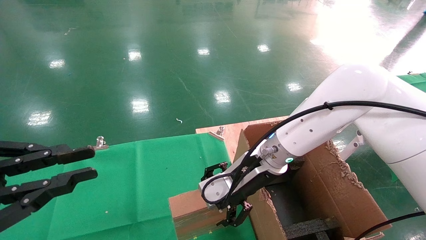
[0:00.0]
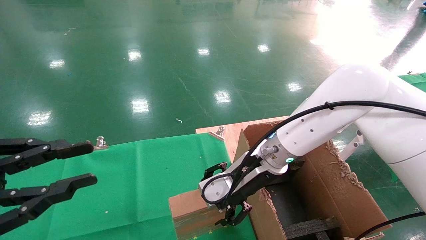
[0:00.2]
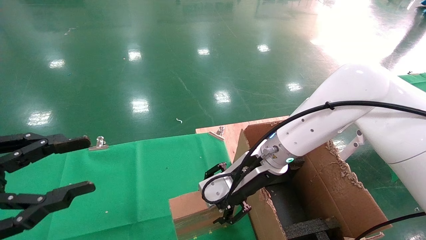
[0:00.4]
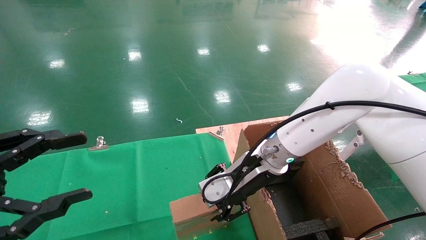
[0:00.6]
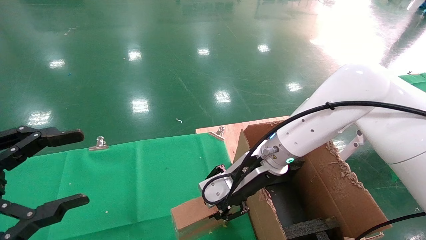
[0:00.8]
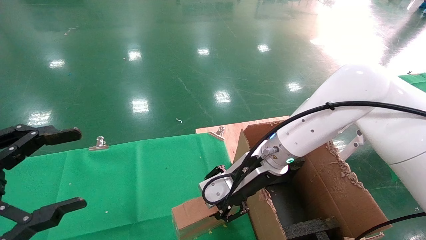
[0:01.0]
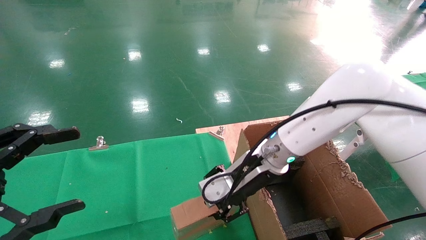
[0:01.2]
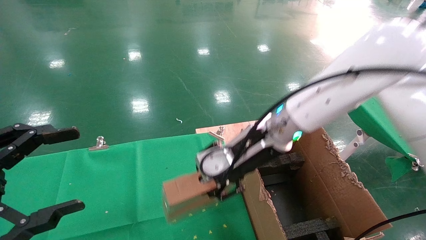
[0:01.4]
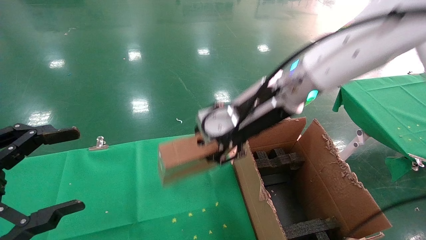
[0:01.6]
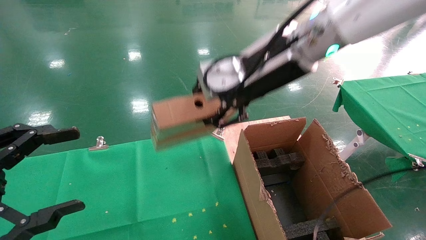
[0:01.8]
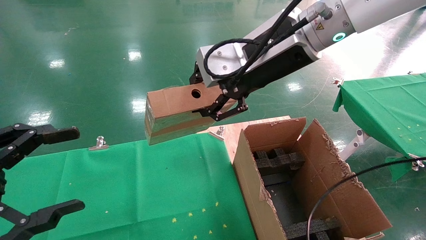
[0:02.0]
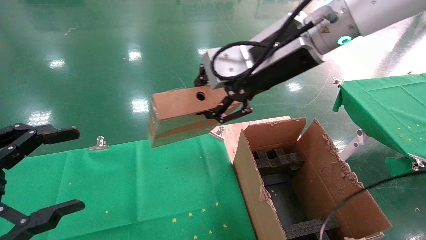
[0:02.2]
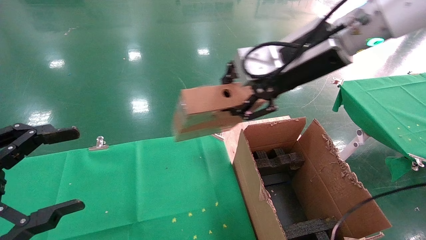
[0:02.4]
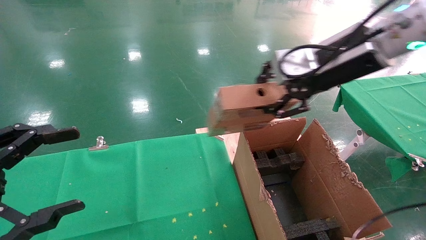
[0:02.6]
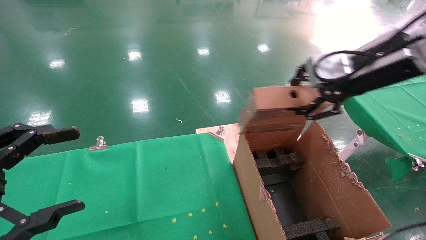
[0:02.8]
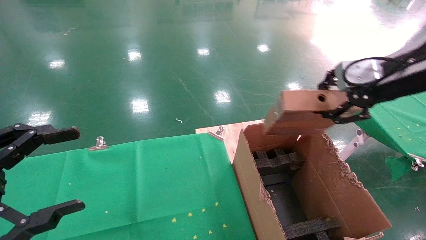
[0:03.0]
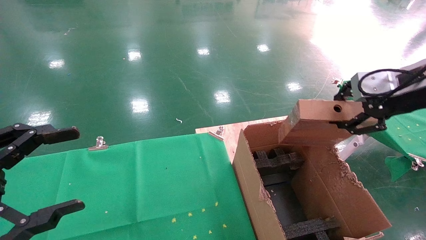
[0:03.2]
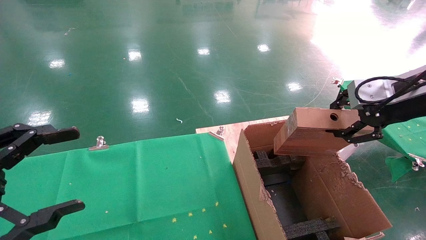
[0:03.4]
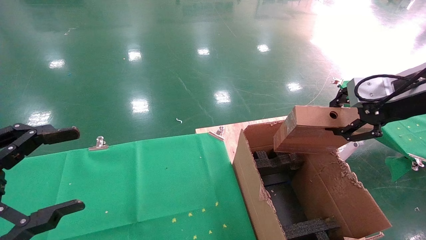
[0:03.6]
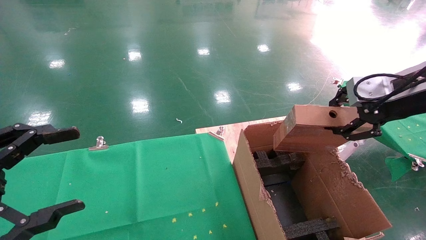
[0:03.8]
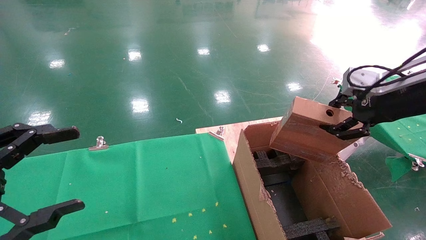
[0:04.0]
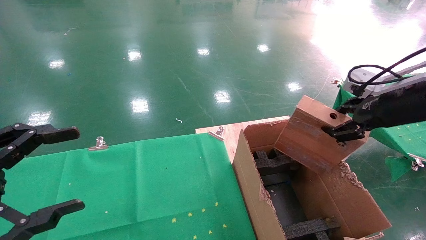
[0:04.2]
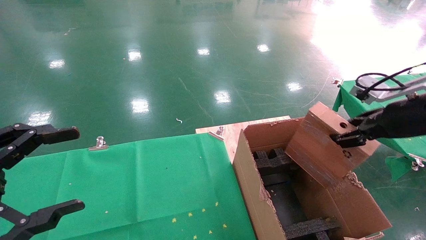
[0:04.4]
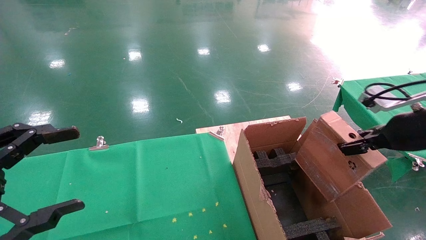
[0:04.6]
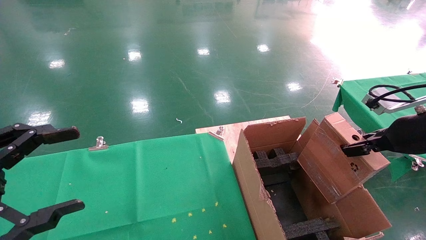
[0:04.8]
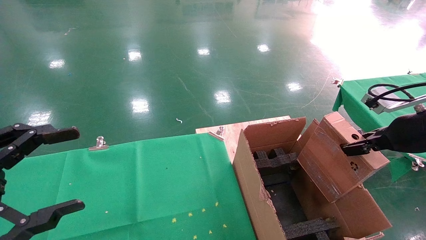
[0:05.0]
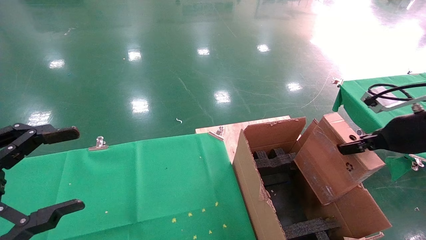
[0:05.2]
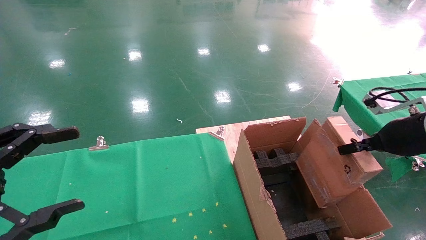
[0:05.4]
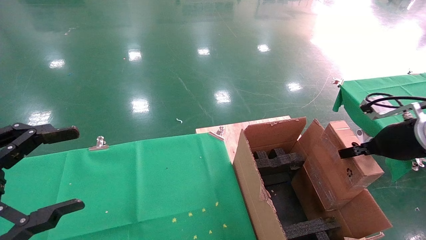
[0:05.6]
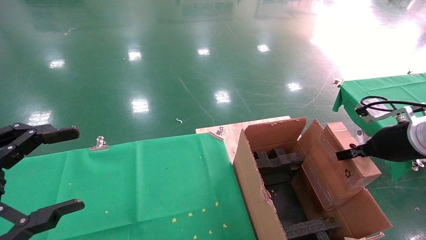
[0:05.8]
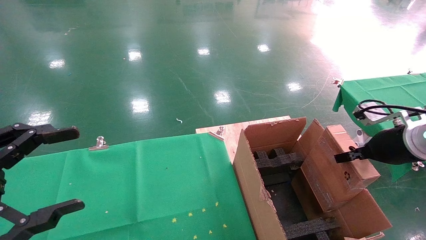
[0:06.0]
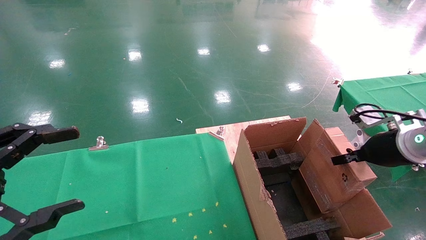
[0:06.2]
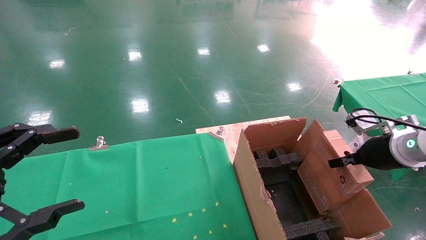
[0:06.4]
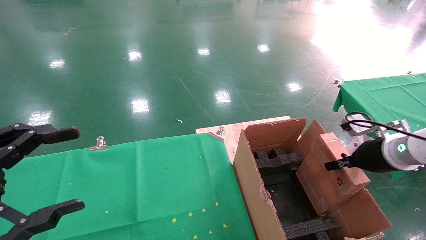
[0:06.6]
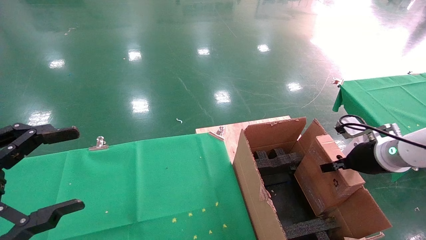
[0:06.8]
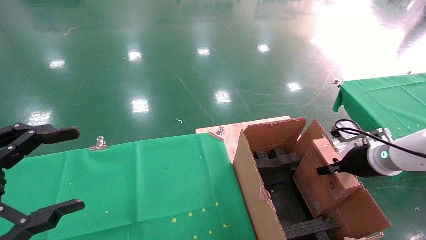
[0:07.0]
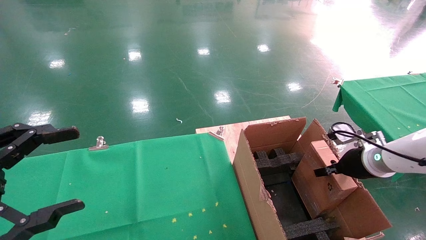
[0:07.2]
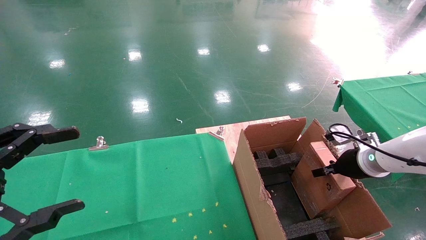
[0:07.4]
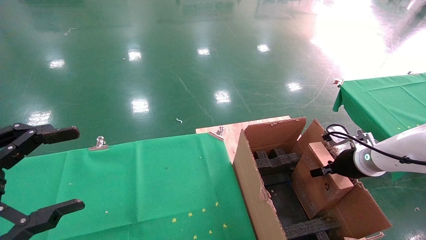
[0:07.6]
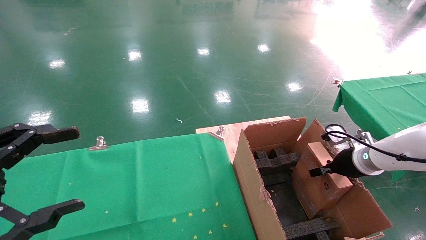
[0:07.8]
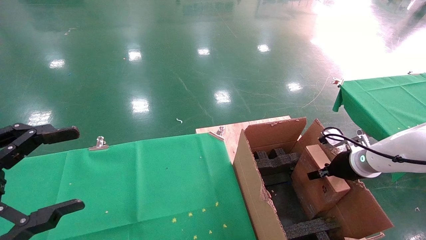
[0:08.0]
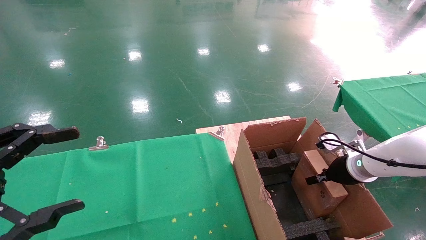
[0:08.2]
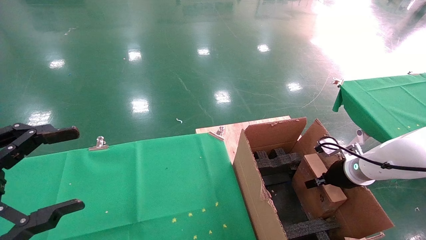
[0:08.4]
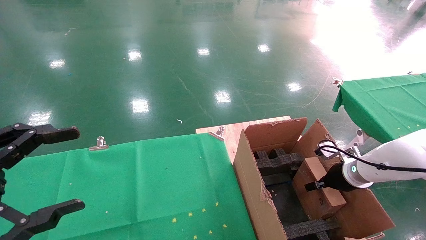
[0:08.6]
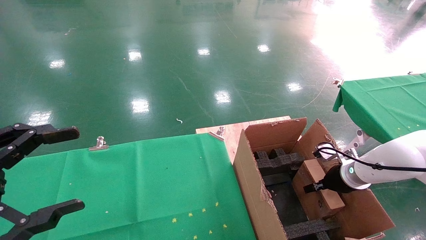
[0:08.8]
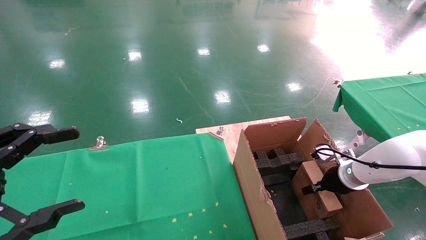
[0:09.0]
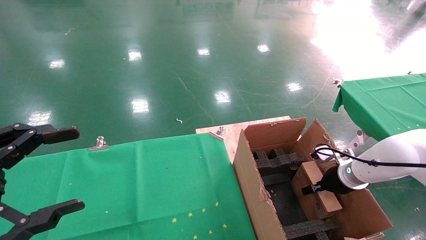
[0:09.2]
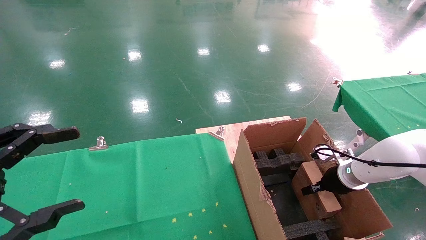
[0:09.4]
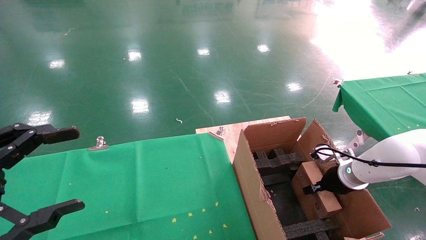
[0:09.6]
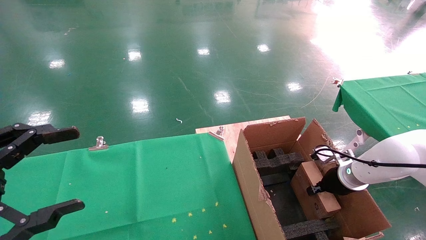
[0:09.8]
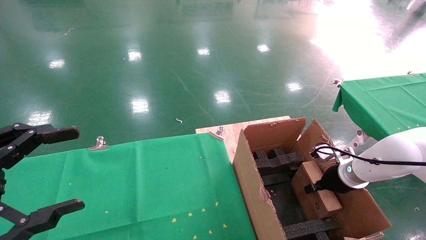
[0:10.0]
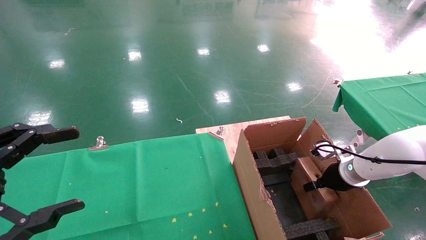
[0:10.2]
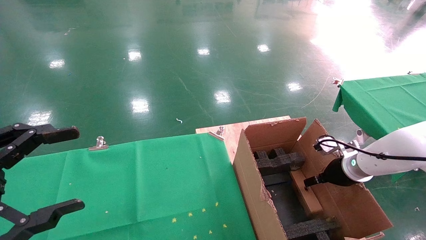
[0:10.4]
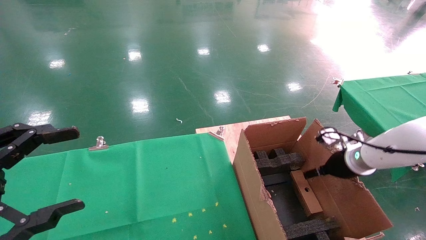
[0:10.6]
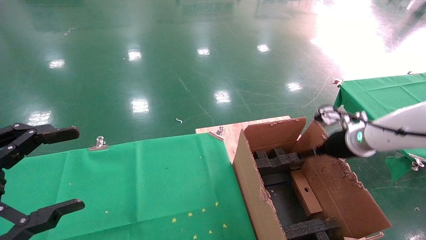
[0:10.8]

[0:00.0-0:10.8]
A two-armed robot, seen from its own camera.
Task of the whole recording: using a robotic arm to pick up a cardboard box and palace it the carton.
Step, 0:00.8 to 0:10.4: Place the mouse and the power cord paper box into the container.
0:00.0 to 0:01.6: The right gripper travels upward by about 15 cm, and closes its fingers, while the left gripper opens its fingers.
0:01.6 to 0:03.0: The right gripper travels to the right by approximately 20 cm.
0:03.0 to 0:04.6: The right gripper travels downward and to the right by roughly 10 cm.
0:04.6 to 0:06.2: The right gripper moves downward, approximately 5 cm.
0:06.2 to 0:07.8: The right gripper shifts about 10 cm downward and forward.
0:07.8 to 0:09.2: The right gripper goes approximately 5 cm downward.
0:09.2 to 0:10.8: The right gripper goes roughly 10 cm upward, and opens up.

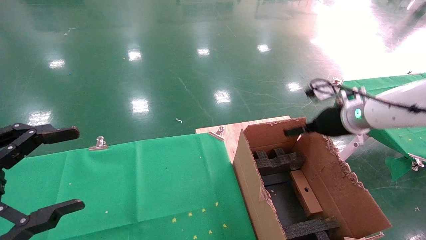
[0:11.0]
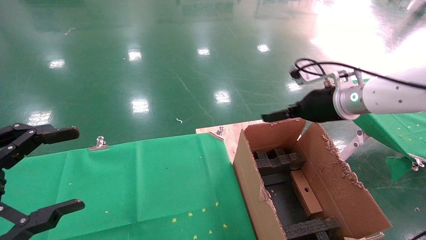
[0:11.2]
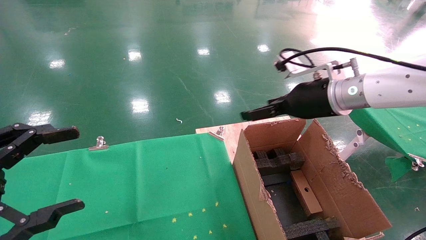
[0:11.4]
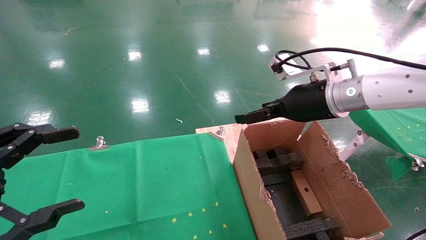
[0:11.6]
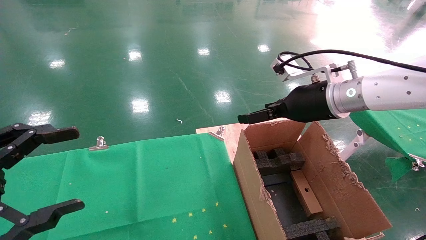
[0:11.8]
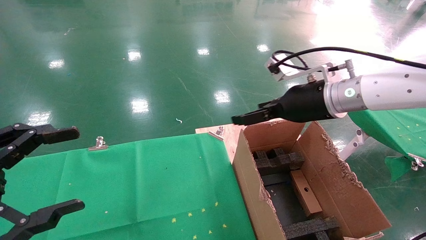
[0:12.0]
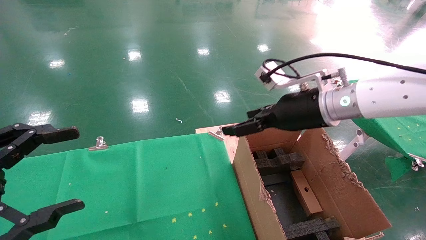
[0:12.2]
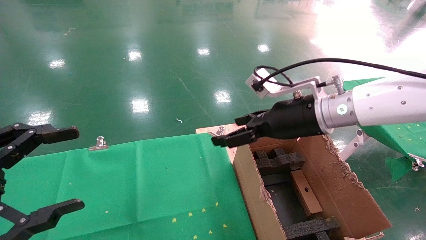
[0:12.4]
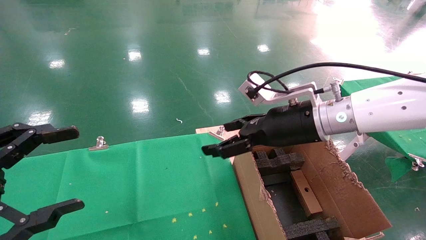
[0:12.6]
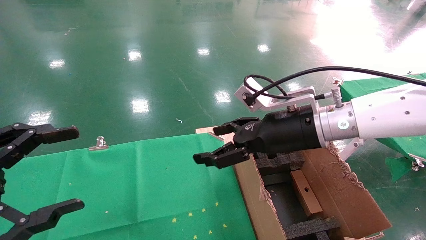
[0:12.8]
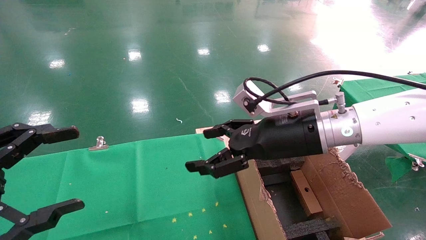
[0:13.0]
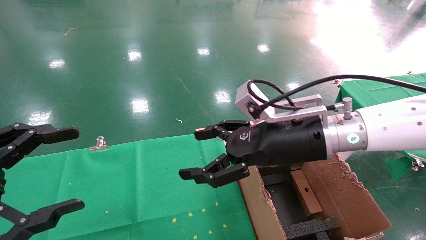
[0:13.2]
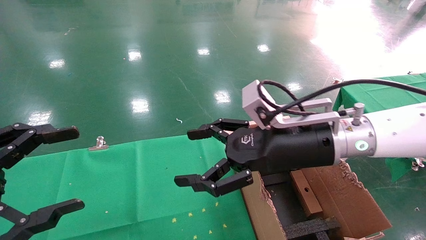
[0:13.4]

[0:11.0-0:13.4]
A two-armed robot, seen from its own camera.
Task of the whole recording: using a robotic arm to pick up a cardboard box and palace it the carton.
0:11.0 to 0:12.2: The right gripper moves to the left, some 10 cm.
0:12.2 to 0:13.4: The right gripper shifts some 5 cm backward.

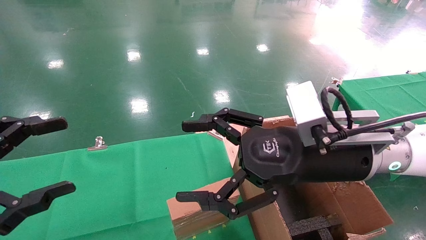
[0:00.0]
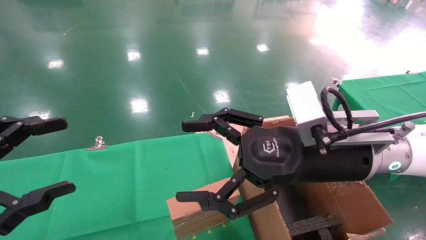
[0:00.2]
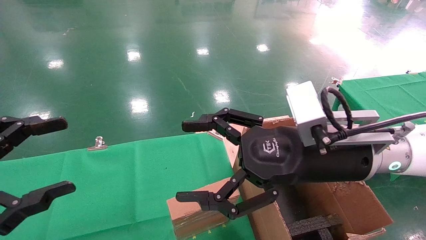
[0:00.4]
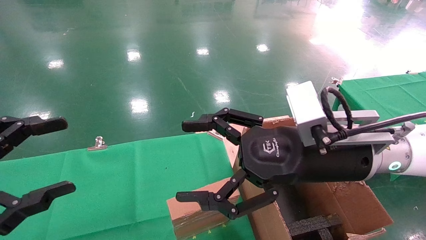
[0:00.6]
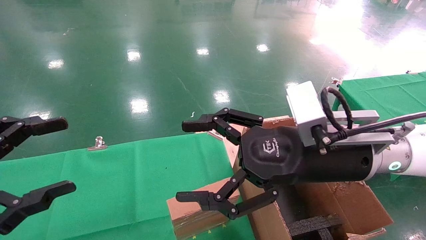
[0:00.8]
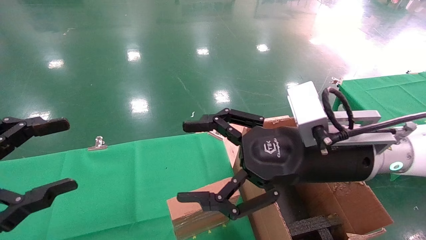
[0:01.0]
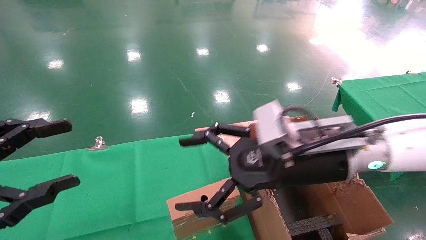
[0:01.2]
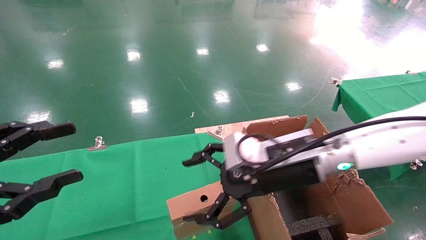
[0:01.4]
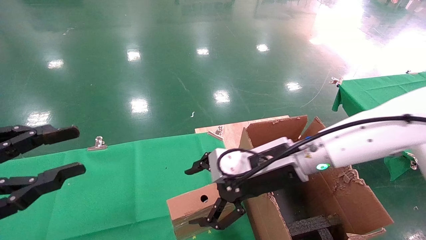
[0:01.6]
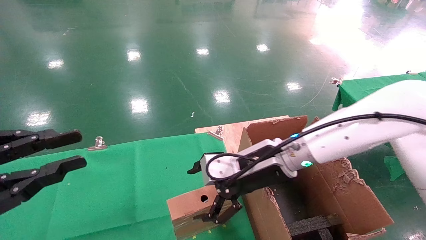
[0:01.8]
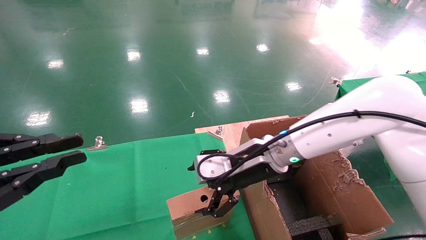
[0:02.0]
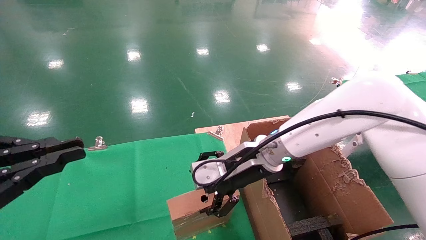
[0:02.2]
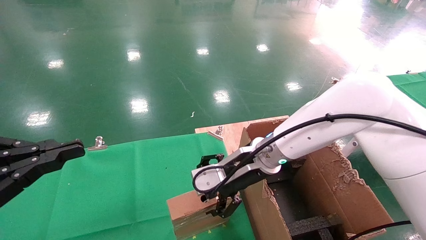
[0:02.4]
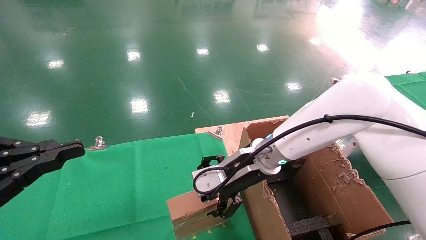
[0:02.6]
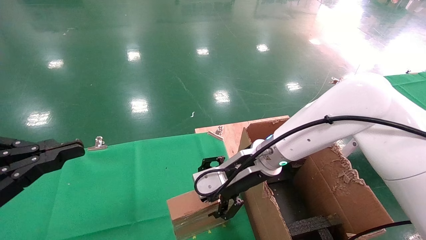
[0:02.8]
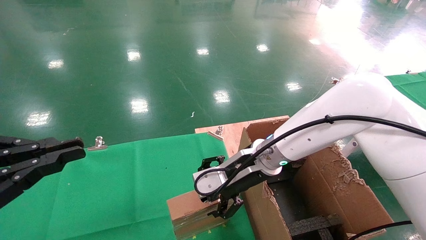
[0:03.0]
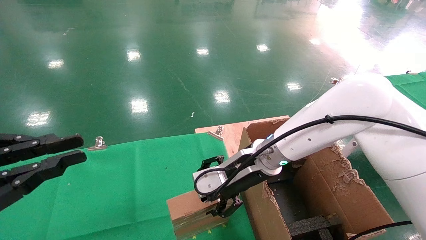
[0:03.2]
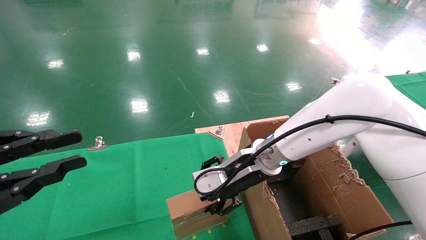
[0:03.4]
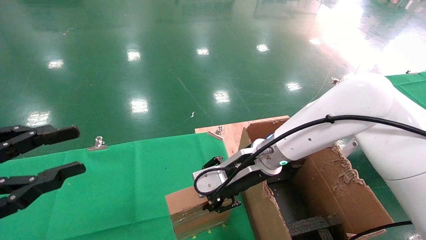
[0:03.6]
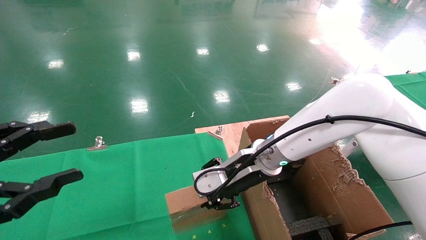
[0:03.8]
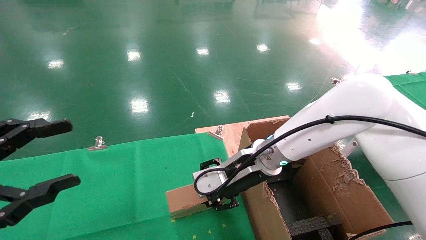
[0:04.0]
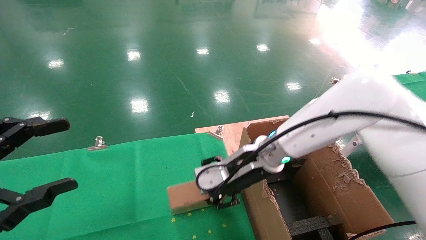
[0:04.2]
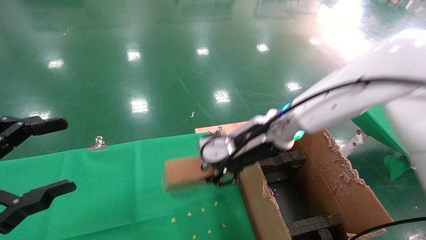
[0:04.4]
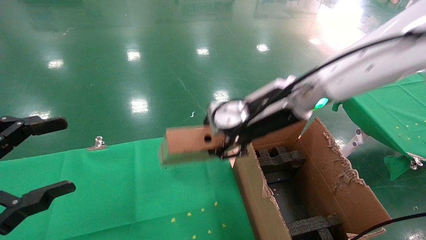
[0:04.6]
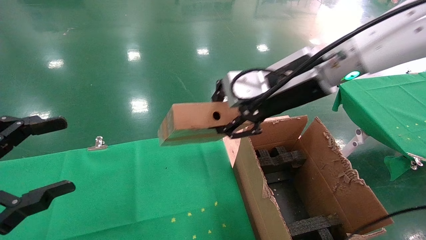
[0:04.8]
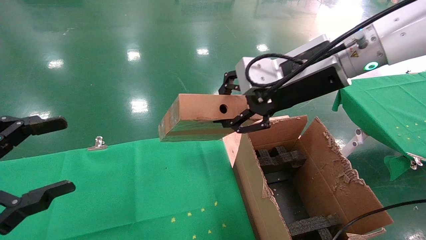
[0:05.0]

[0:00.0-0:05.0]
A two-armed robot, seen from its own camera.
Task of the whole recording: using a robotic arm to pick up a cardboard box and palace it the carton.
Step, 0:01.2 to 0:03.8: Pick up the mouse and the power cord paper box.
0:00.0 to 0:01.6: The left gripper closes its fingers, while the right gripper is displaced forward and downward by approximately 10 cm.
0:01.6 to 0:03.4: The left gripper closes its fingers; the right gripper ends up some 5 cm from where it was.
0:03.4 to 0:05.0: The left gripper opens its fingers; the right gripper moves upward and to the right, approximately 20 cm, and closes up.
